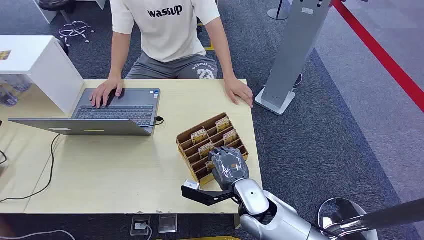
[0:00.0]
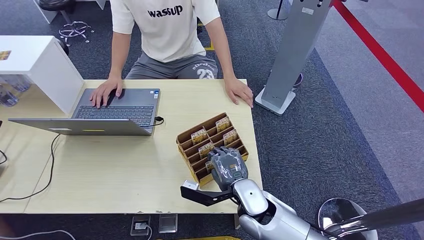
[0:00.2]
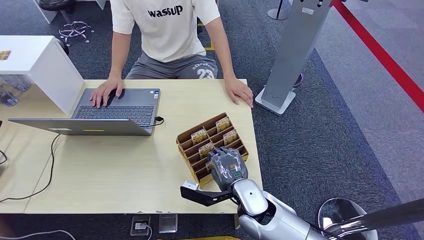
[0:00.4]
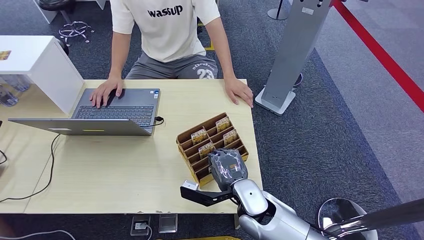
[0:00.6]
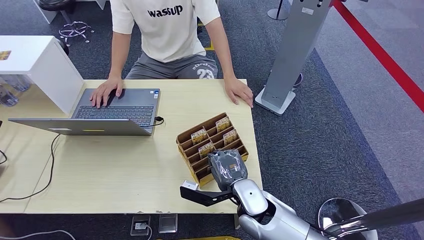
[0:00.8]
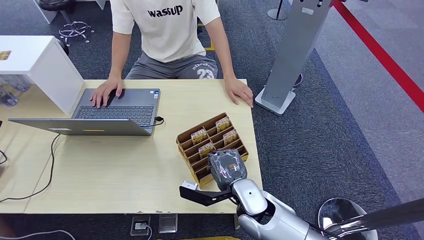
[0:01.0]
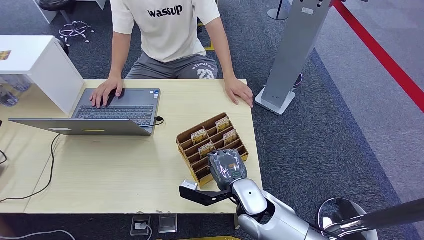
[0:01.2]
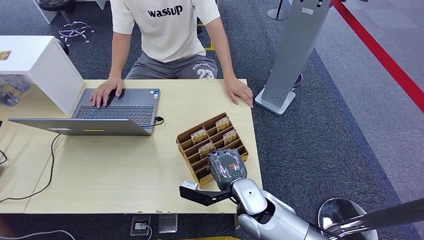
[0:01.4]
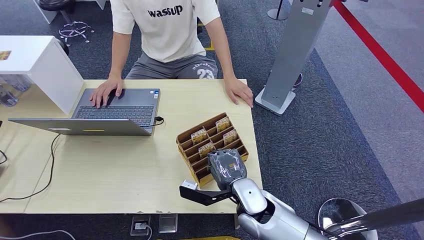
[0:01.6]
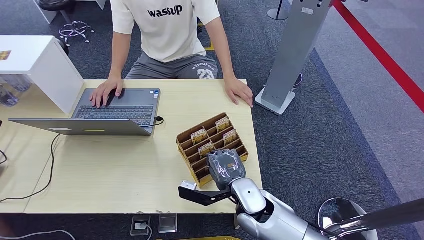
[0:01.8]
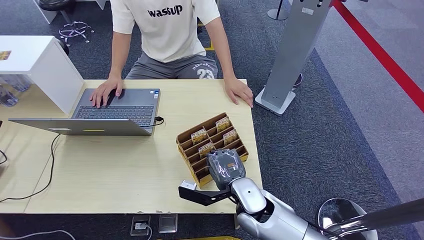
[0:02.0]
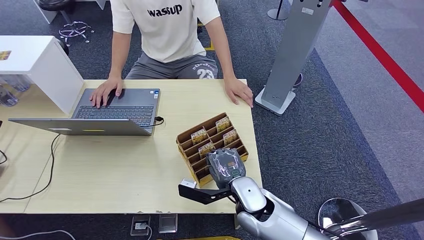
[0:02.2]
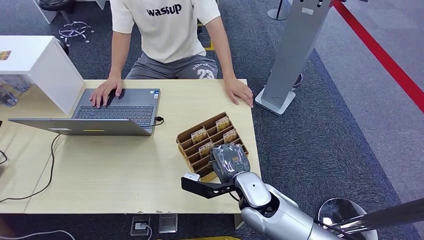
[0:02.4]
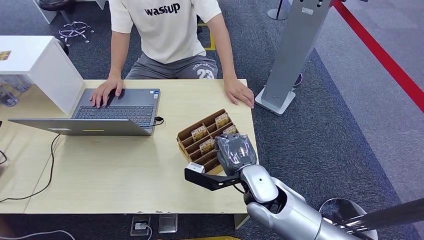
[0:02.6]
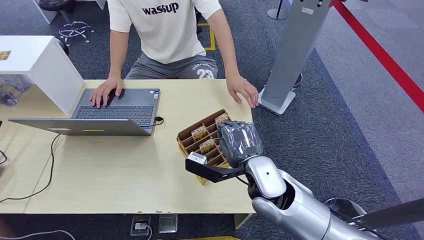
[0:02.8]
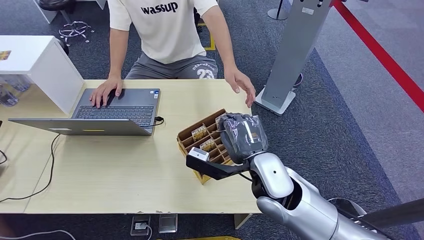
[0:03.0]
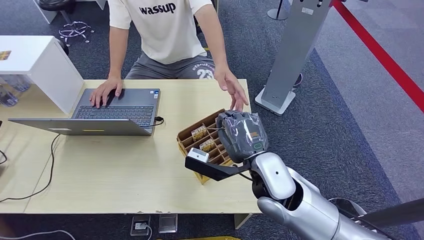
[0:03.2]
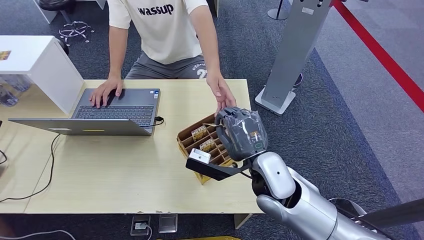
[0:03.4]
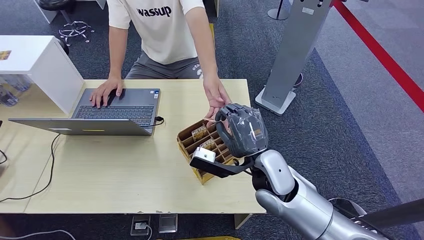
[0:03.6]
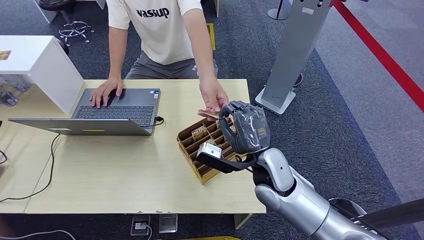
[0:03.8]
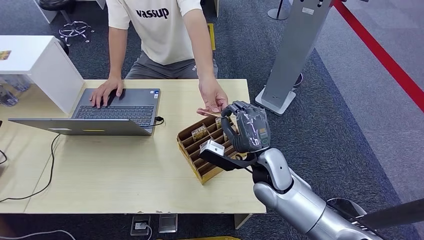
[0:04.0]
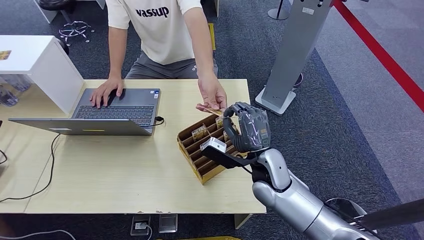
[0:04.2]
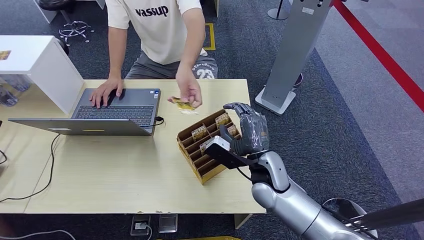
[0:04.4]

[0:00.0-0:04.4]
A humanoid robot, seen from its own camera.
Step, 0:00.0 to 0:02.4: Pick up the room card from the card holder.
Step, 0:02.8 to 0:04.4: Hand the room card to the target.
0:01.4 to 0:03.0: The right hand is displaced upward by approximately 10 cm.
0:03.0 to 0:04.4: The right hand travels downward by about 5 cm.
